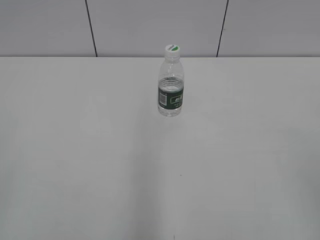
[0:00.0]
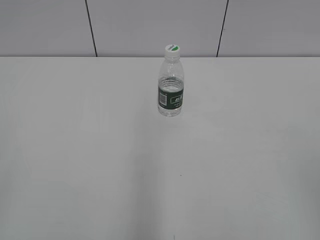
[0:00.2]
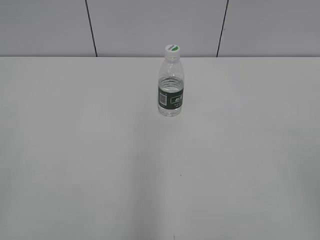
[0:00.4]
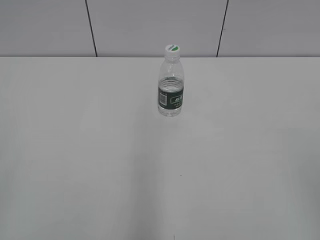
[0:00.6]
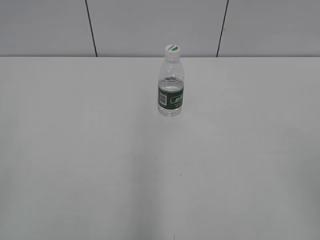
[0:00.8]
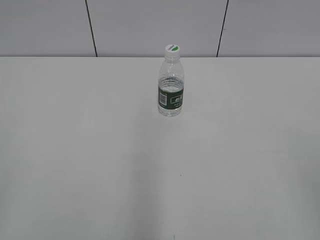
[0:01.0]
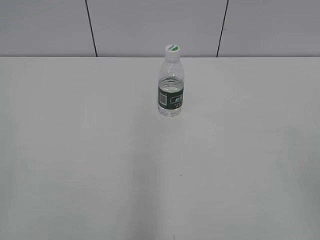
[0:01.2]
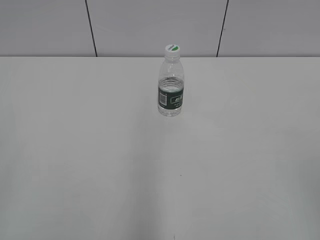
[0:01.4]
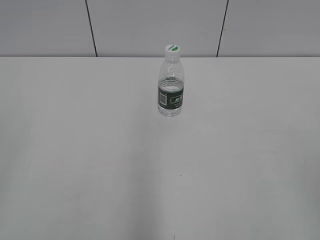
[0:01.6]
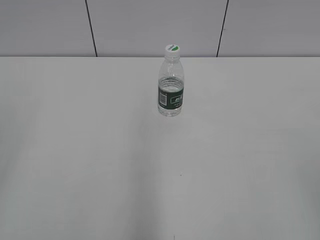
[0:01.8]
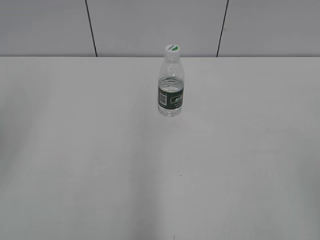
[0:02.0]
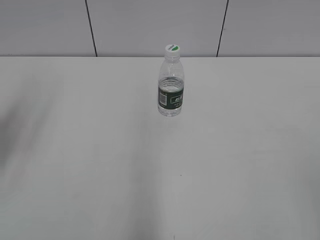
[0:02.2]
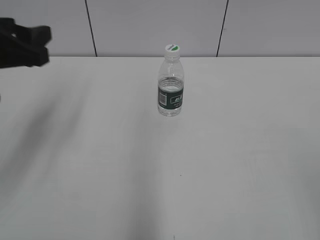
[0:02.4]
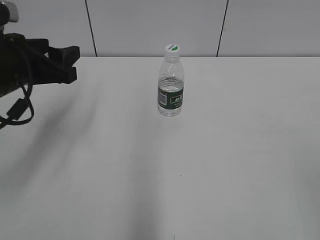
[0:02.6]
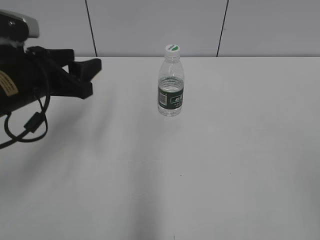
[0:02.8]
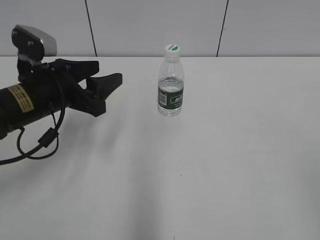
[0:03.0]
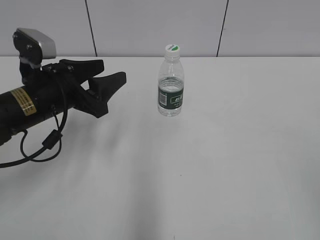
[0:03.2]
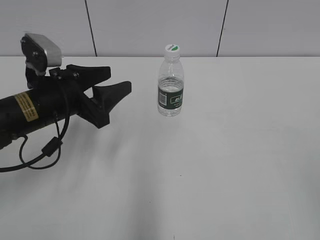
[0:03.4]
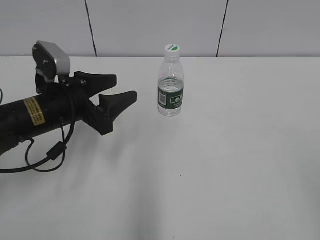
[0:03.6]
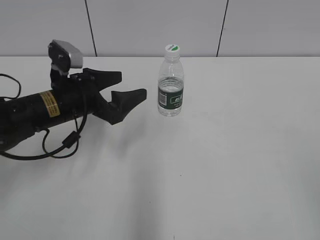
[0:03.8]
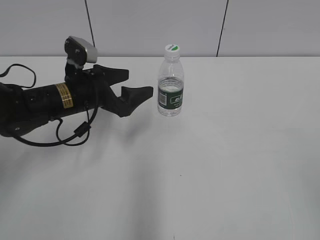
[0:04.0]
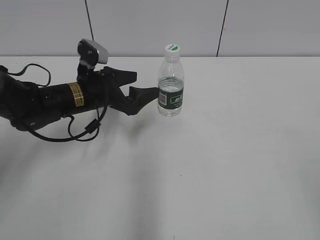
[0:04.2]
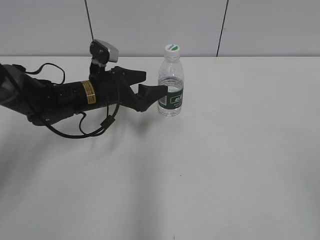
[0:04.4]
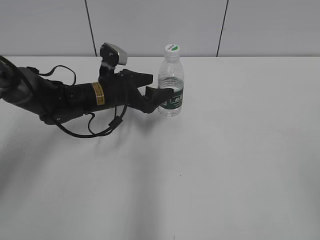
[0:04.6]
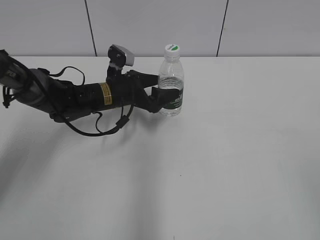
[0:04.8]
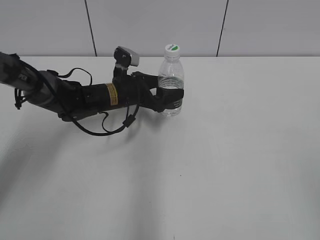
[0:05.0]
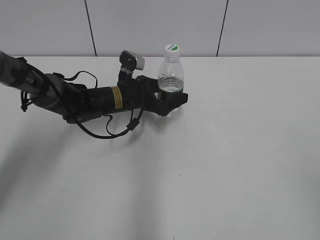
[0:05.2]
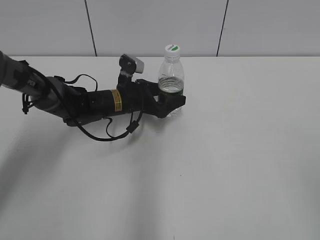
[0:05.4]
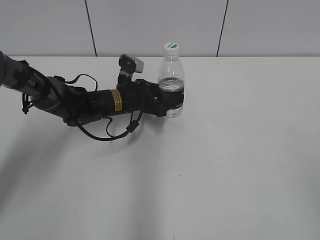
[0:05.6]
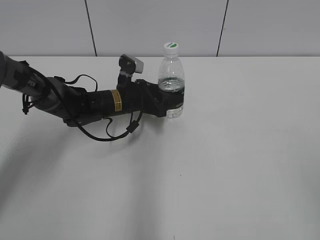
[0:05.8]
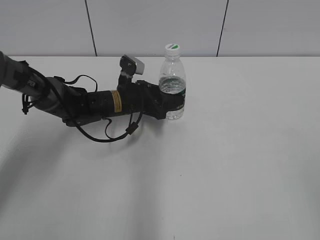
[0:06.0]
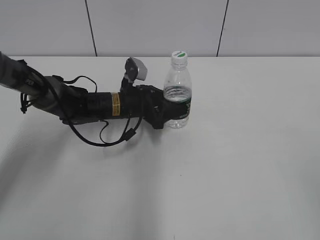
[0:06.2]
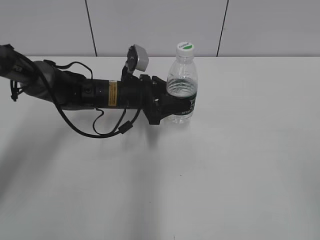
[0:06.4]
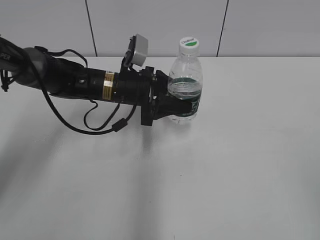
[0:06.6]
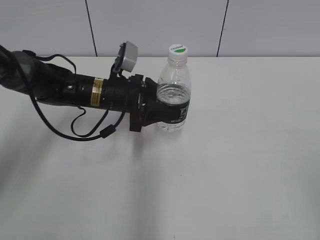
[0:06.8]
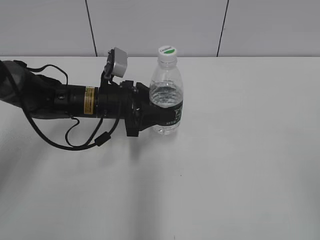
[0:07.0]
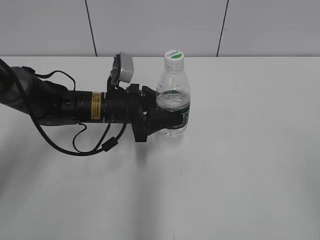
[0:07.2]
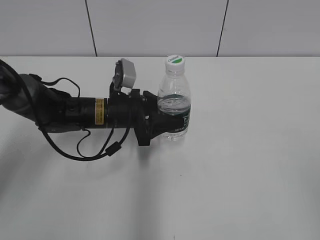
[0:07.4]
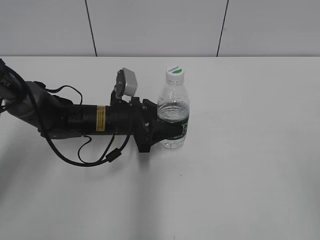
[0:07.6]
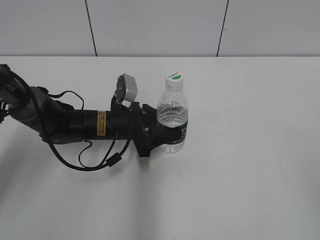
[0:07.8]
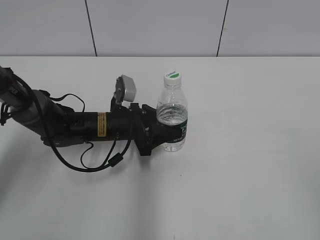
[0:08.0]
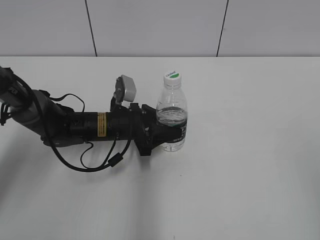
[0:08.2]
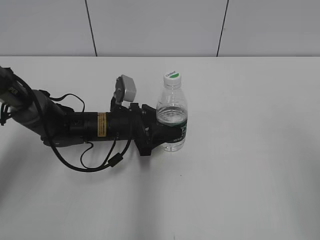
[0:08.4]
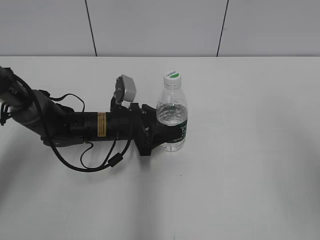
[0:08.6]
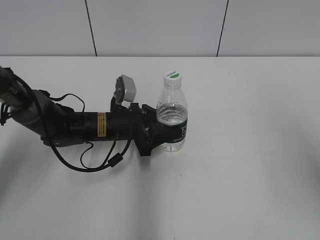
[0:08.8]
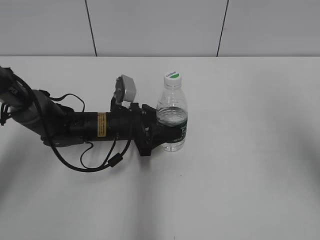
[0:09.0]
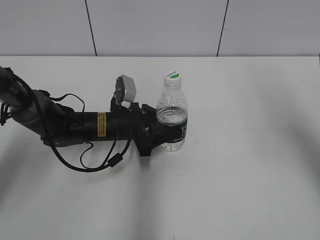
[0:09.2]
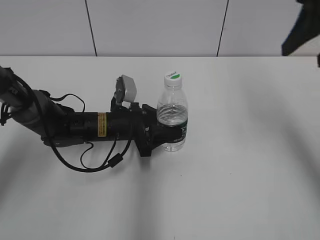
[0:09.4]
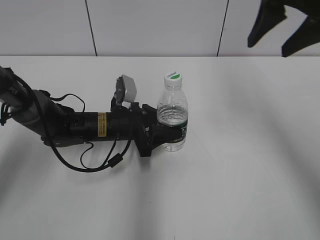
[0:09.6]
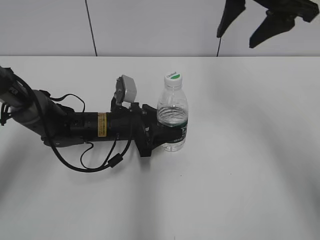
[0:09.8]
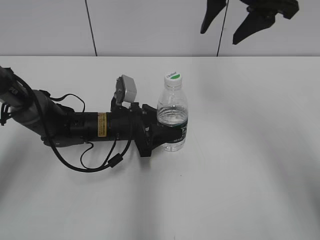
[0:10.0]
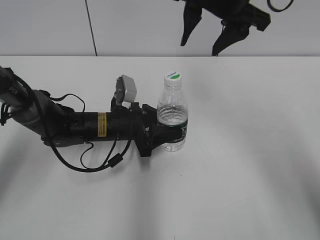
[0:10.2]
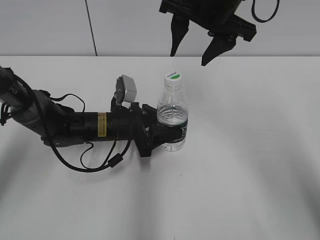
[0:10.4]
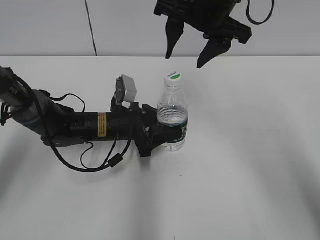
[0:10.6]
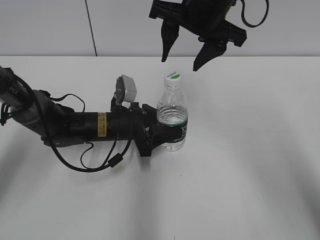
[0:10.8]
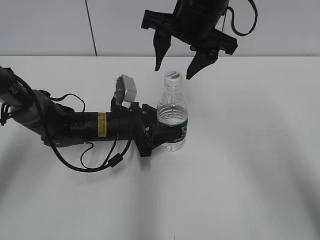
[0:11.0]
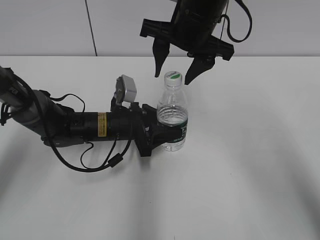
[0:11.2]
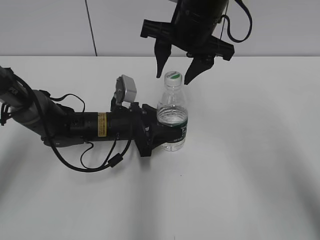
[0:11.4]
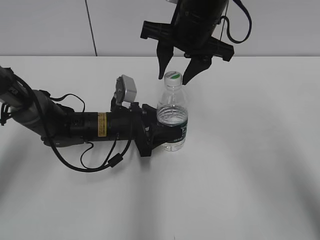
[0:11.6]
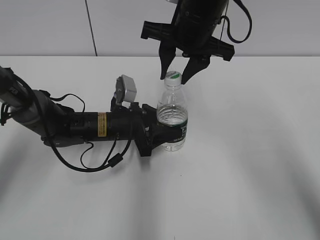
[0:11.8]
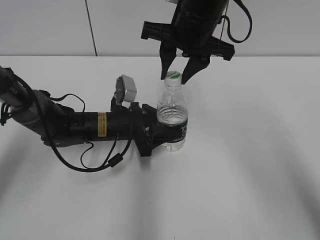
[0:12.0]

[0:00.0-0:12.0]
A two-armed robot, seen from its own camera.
Step, 0:00.0 to 0:06.0: Grasp the bottle and move it to the center of the table with the left gripper.
Step, 0:06.2 to 0:08.2: Lift the bottle and move it to the center of the table with the left gripper.
0:01.6 to 0:03.0: The left gripper shifts roughly 35 cm forward, downward and to the right.
0:03.0 to 0:04.4: The left gripper heads forward, downward and to the right, covering some 15 cm, and opens up.
0:04.4 to 0:06.0: The left gripper shifts by approximately 10 cm, and closes.
0:06.0 to 0:07.6: The left gripper travels backward by about 5 cm.
0:07.6 to 0:09.0: The right gripper shifts some 20 cm forward and upward.
0:09.0 to 0:10.4: The right gripper goes about 25 cm to the left and forward.
0:10.4 to 0:12.0: The right gripper closes up.

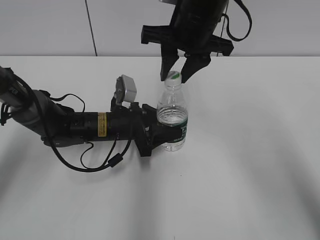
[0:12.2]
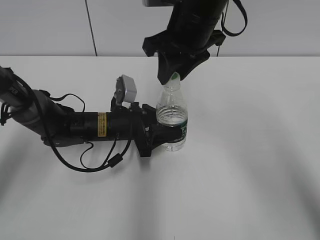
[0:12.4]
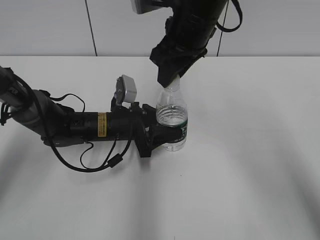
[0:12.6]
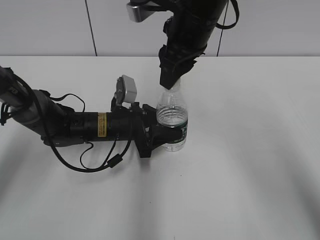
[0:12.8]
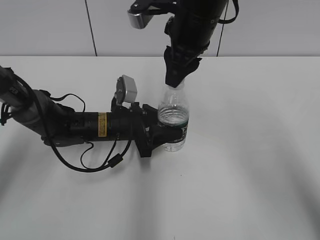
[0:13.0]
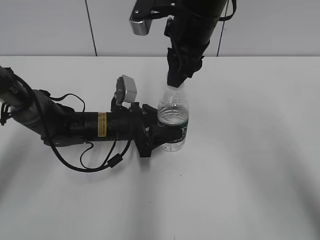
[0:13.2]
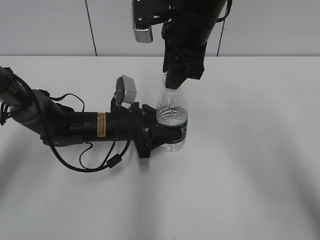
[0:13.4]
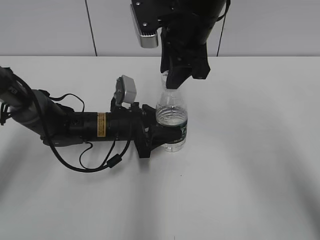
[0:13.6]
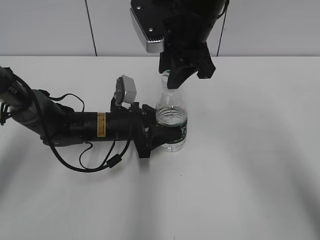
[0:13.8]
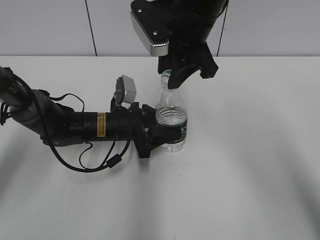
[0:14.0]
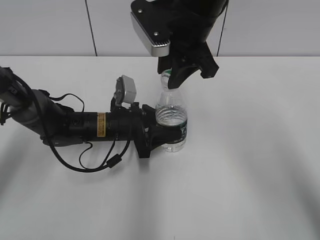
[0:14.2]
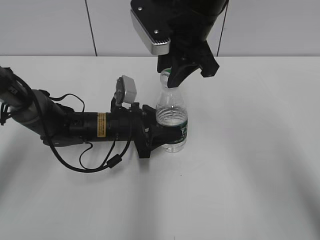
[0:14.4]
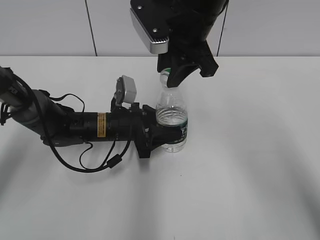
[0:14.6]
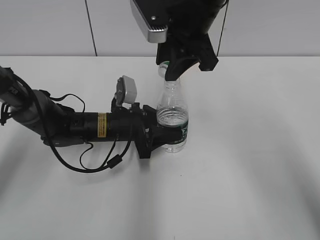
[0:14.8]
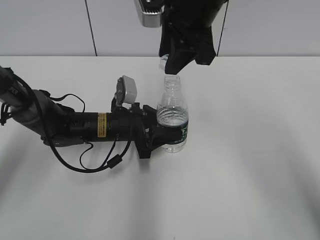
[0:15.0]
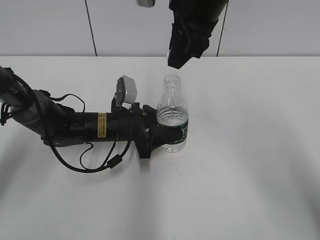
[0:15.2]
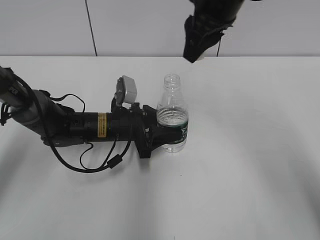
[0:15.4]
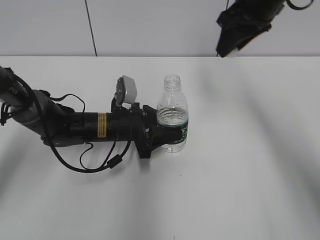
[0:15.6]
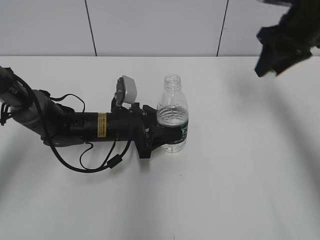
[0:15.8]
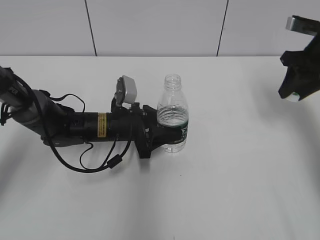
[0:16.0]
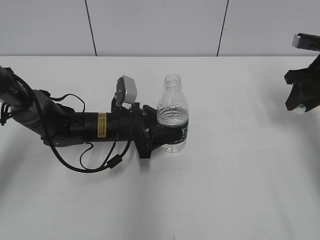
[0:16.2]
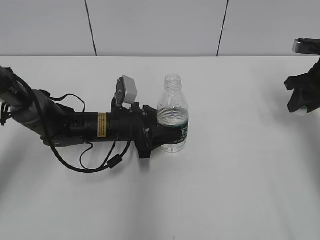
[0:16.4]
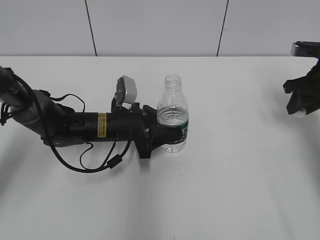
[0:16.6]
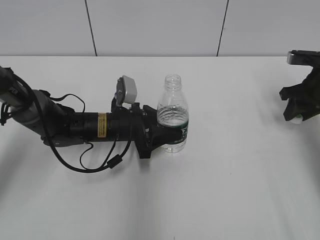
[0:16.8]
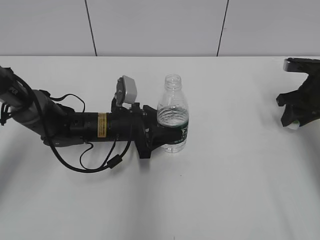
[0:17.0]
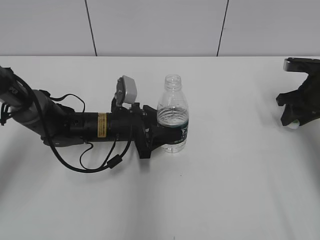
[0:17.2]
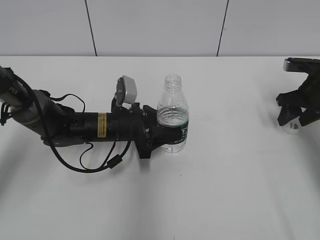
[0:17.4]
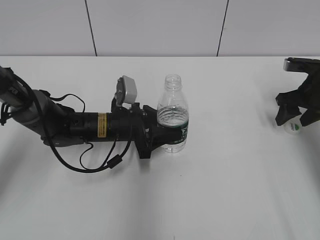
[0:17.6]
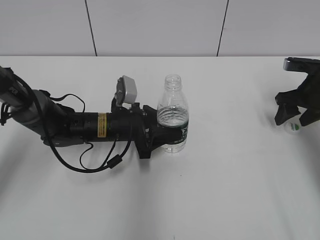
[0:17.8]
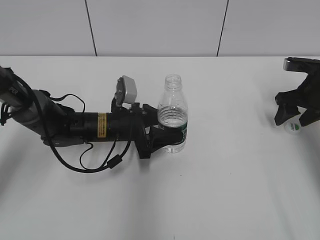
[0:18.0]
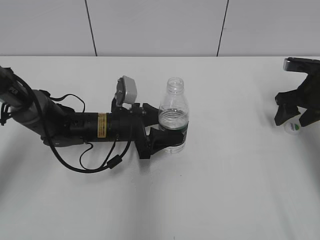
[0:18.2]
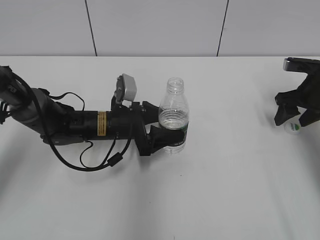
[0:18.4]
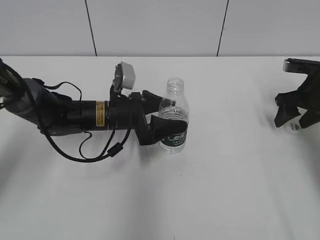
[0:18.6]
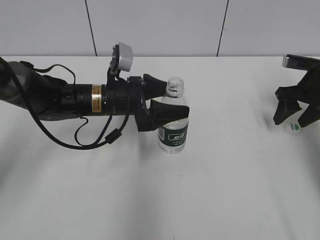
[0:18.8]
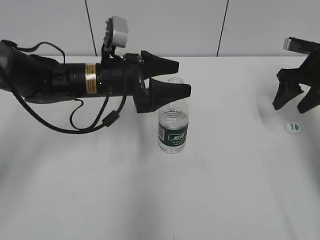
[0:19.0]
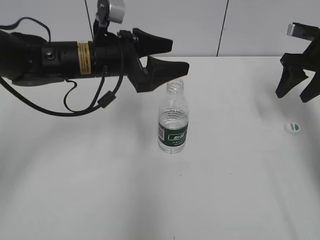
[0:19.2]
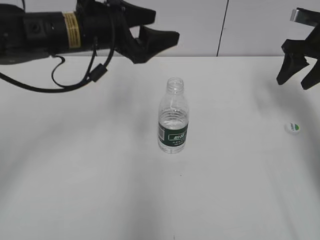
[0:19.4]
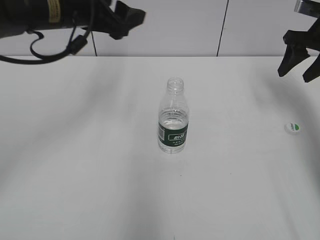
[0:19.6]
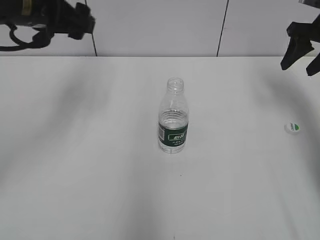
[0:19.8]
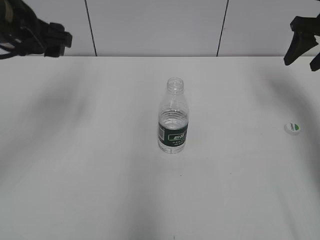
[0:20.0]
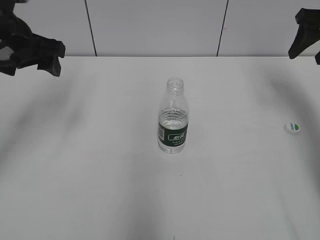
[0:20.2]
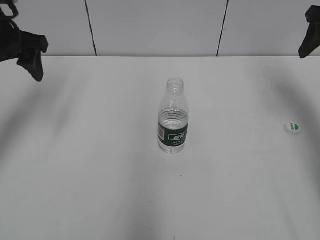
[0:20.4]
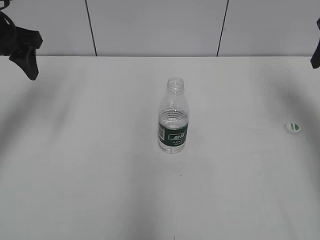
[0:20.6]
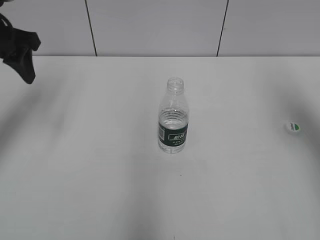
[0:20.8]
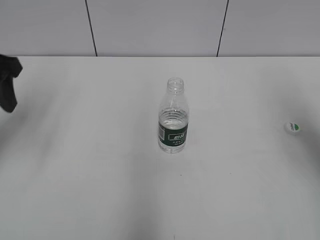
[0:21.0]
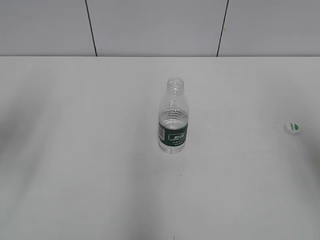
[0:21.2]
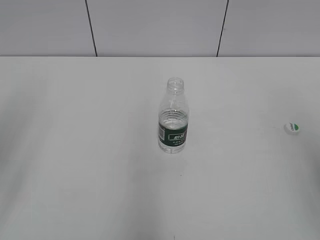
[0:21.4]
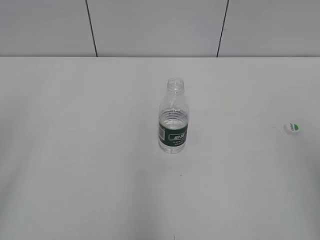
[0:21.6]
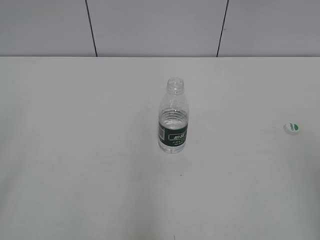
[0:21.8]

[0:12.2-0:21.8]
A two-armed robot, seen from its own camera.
Step, 0:12.2 to 0:14.8: Unscrew the bottle cap with the right gripper while holding the bottle with the left gripper.
Step, 0:15.2 to 0:18.0: Place the bottle cap on the table with the right gripper.
Step, 0:18.2 to 0:19.0: Place the bottle on the table with the left gripper.
0:15.4 to 0:17.0: The right gripper heads to the right and downward, covering some 30 cm.
0:17.0 to 0:18.6: The left gripper opens; the right gripper opens up.
0:18.6 to 0:20.2: The left gripper shifts some 25 cm upward and to the left, while the right gripper travels upward by some 15 cm.
0:20.2 to 0:21.8: Both grippers travel together backward, approximately 30 cm. The left gripper closes.
